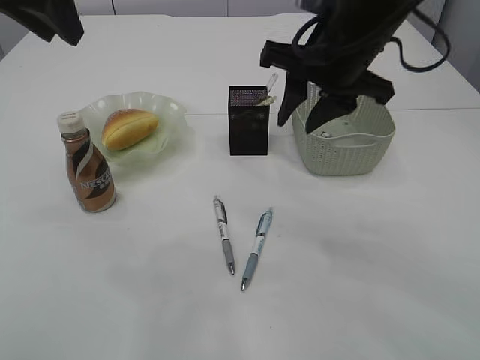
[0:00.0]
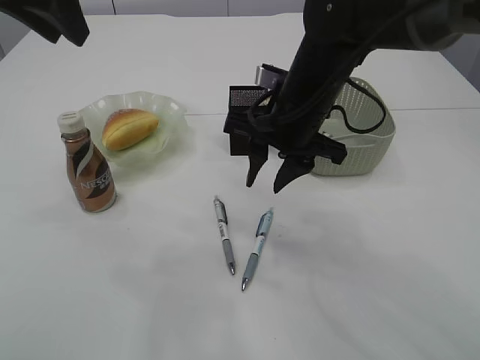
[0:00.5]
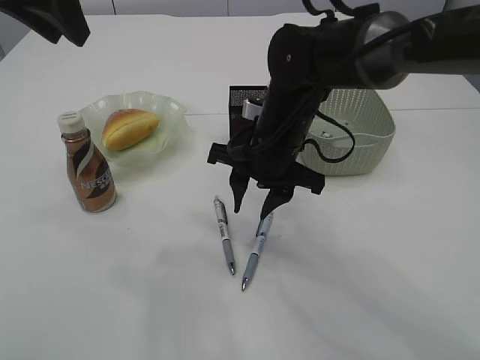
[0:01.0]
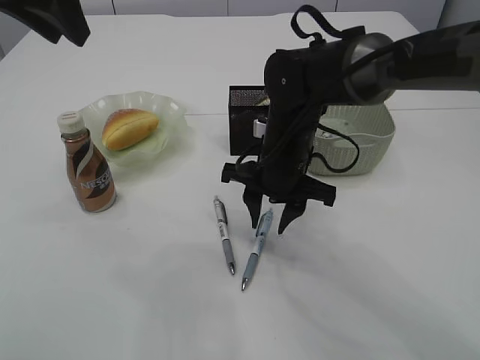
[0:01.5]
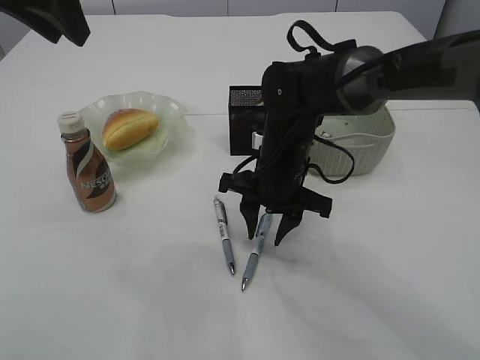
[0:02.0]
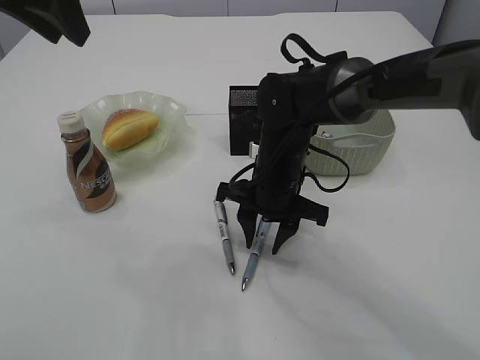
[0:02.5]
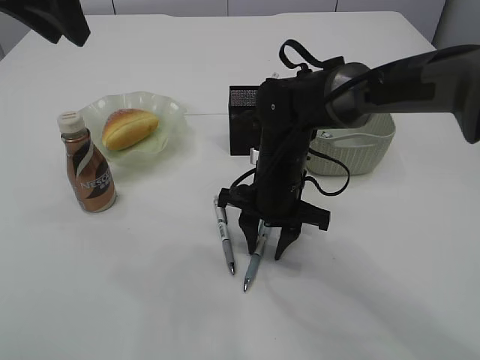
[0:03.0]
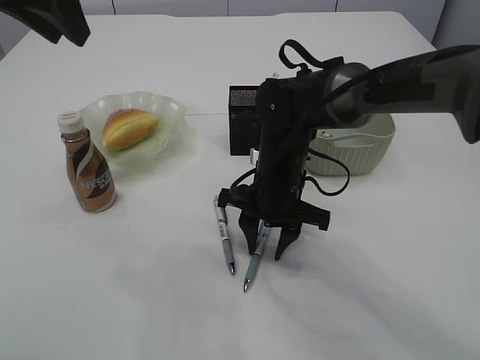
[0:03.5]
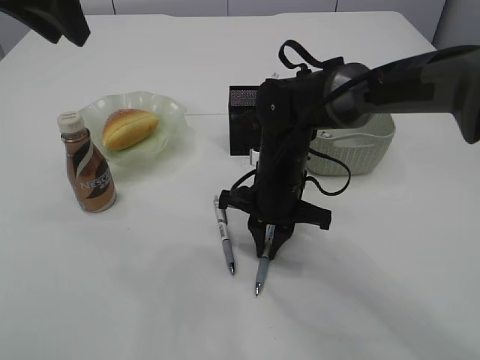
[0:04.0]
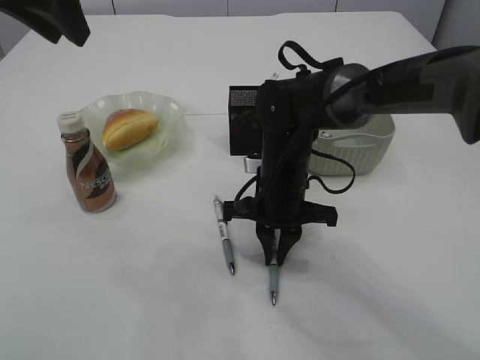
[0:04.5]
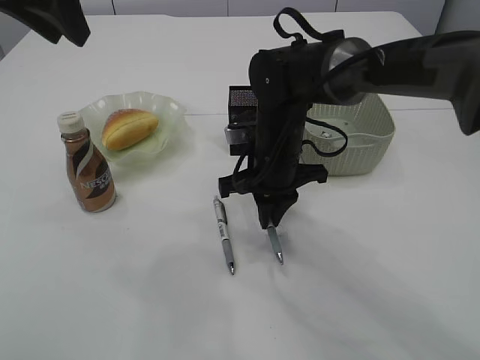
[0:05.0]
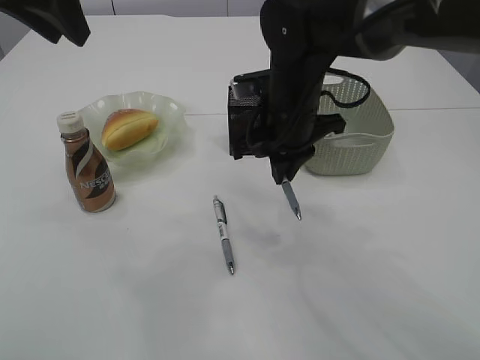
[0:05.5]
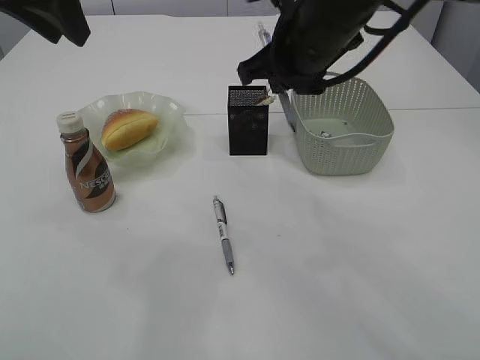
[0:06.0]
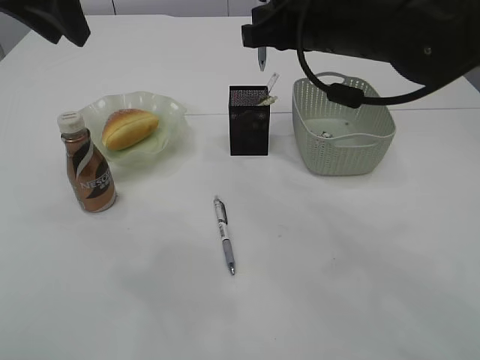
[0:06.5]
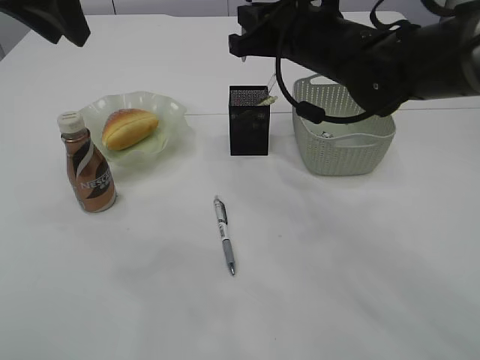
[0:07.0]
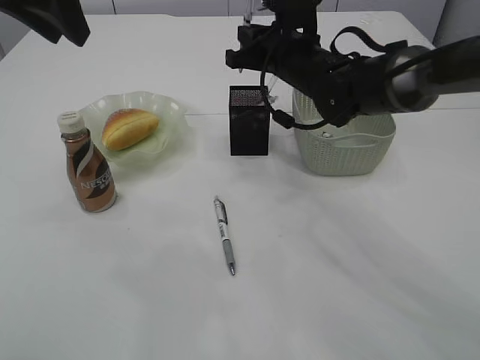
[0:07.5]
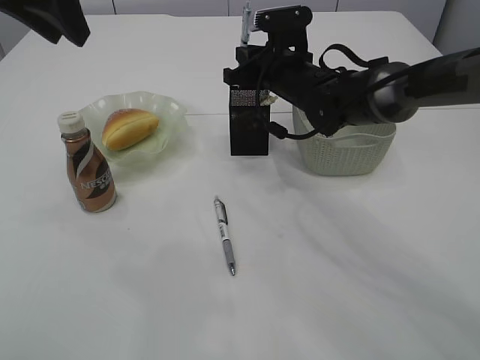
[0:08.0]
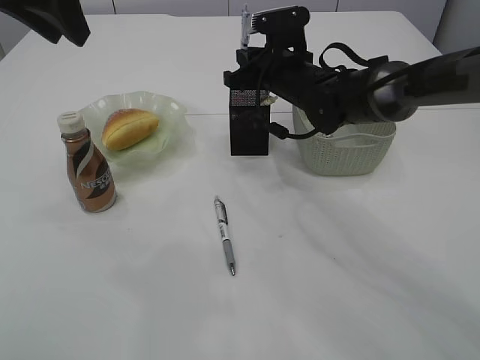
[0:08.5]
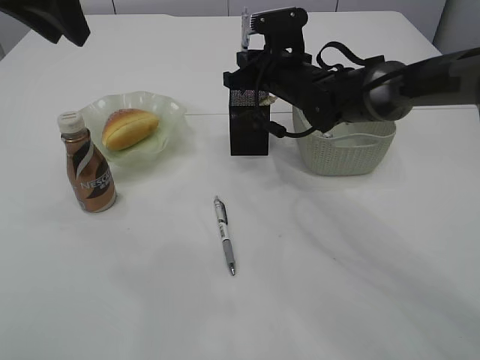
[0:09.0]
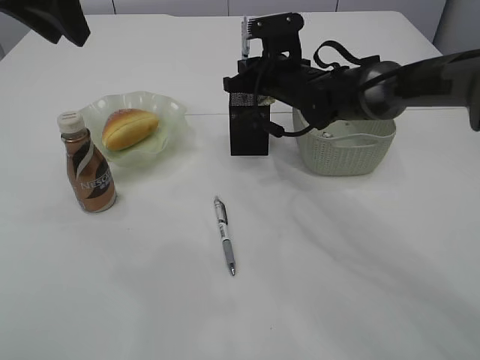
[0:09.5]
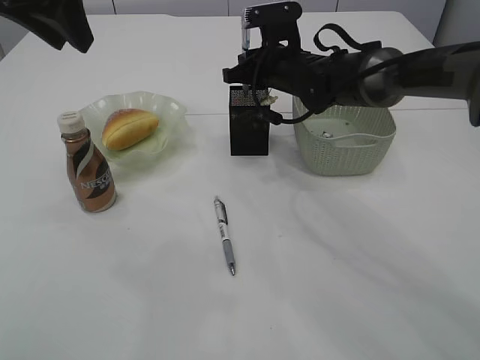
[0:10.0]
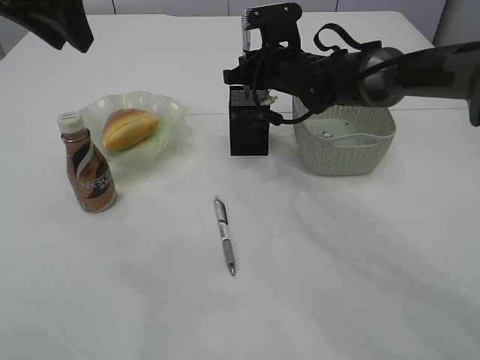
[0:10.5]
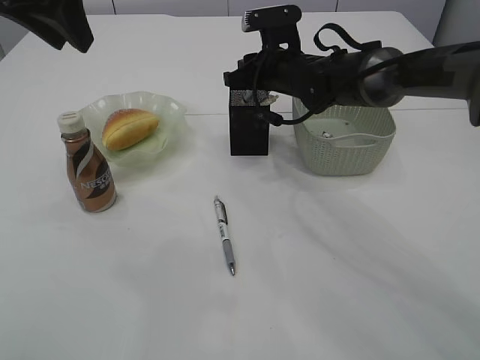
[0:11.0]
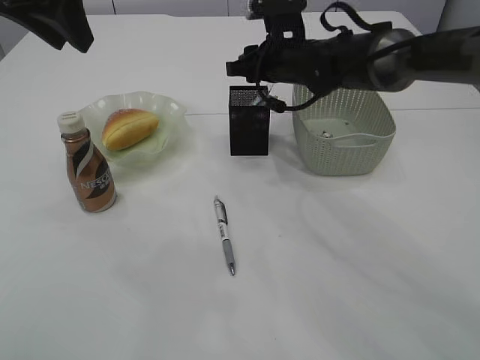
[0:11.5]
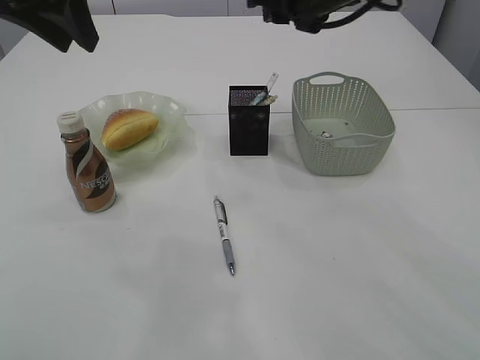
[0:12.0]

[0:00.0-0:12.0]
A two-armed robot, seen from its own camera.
Step, 0:00.0 to 0:05.0: Pick up the pen with right arm.
Step, 0:05.5 to 0:11.5: Place the pen into the pen holder.
0:00.0 to 0:02.0: The right gripper is displaced downward by some 15 cm.
0:02.0 to 0:04.0: The right gripper closes its fingers.
0:04.0 to 0:06.0: The right gripper is displaced upward by approximately 20 cm.
0:06.0 to 0:08.0: The right gripper travels forward and downward by roughly 15 cm.
0:08.0 to 0:10.0: The grippers make only small movements.
0:10.0 to 0:12.0: The right gripper shifts roughly 15 cm upward and backward, and opens its fingers.

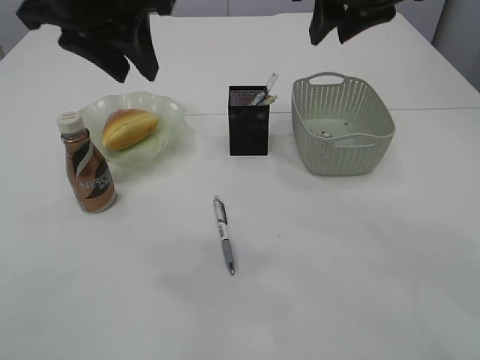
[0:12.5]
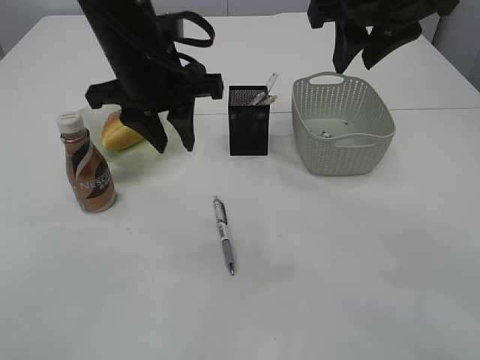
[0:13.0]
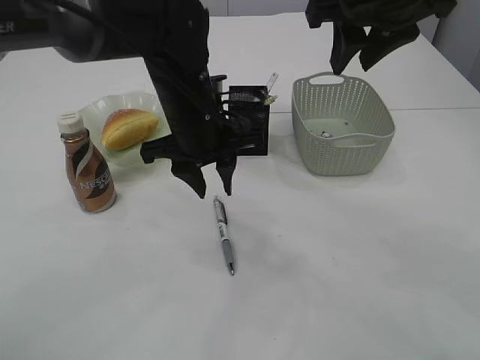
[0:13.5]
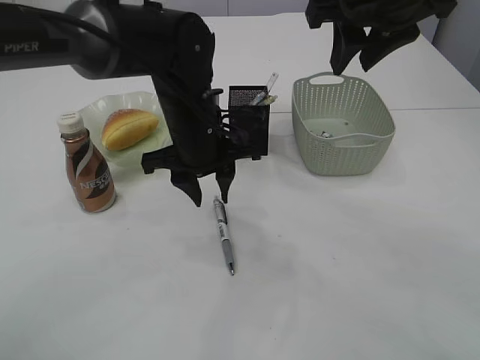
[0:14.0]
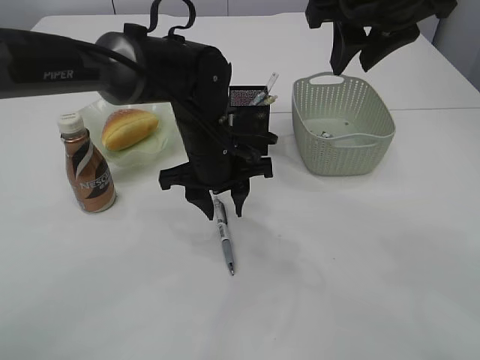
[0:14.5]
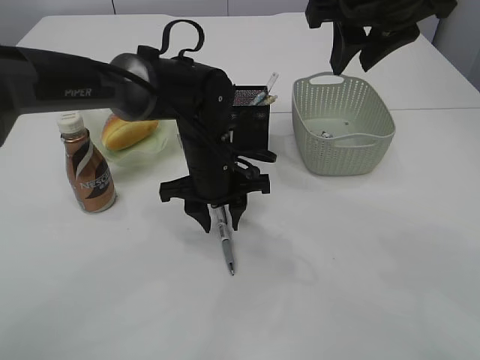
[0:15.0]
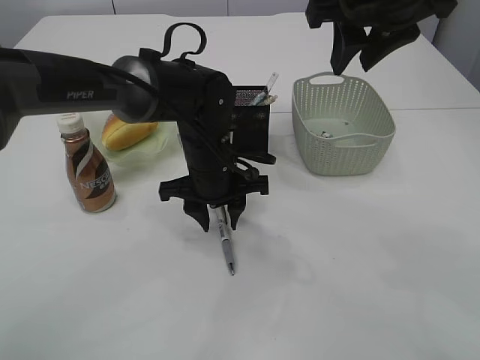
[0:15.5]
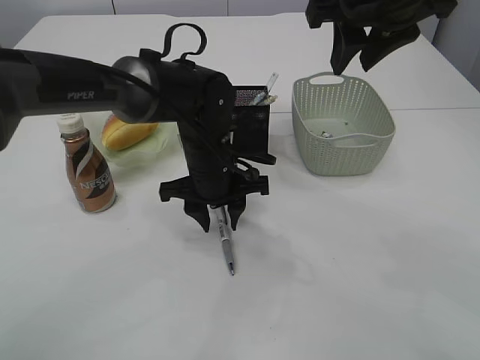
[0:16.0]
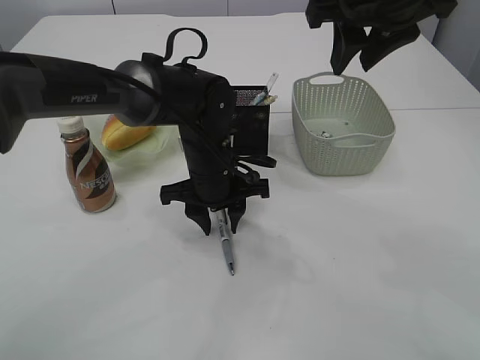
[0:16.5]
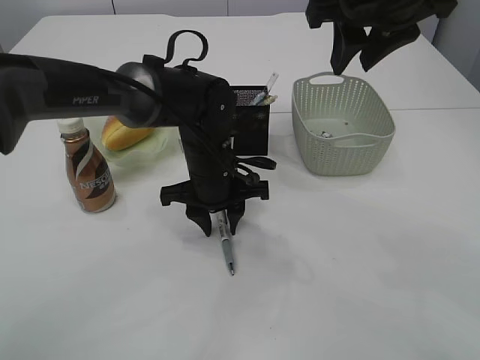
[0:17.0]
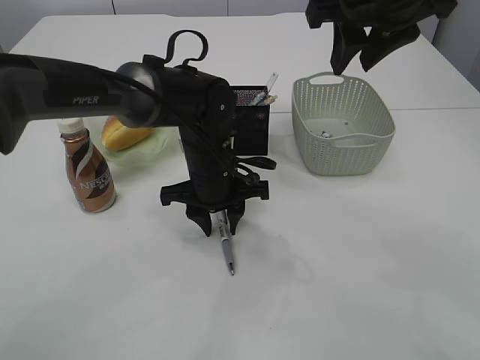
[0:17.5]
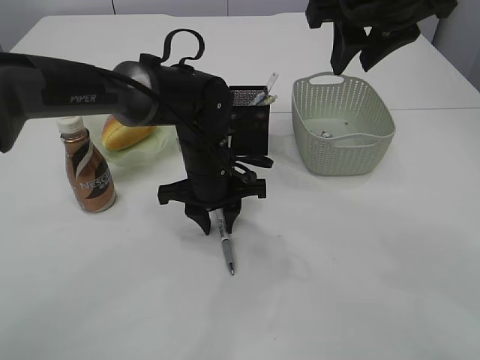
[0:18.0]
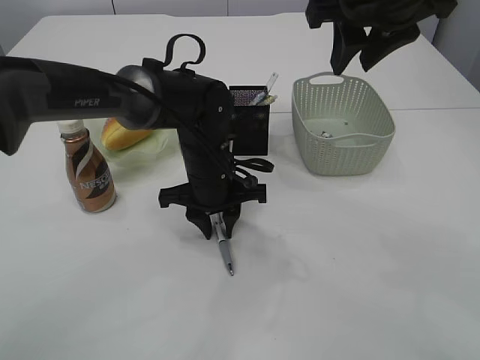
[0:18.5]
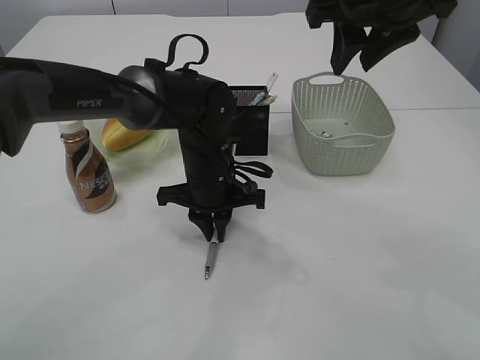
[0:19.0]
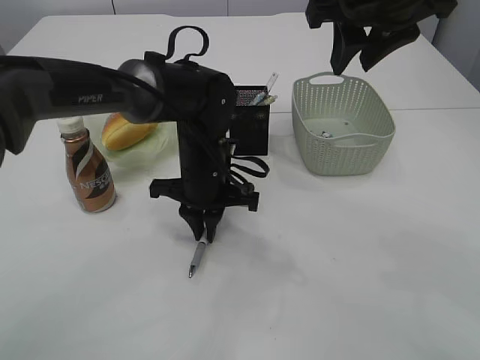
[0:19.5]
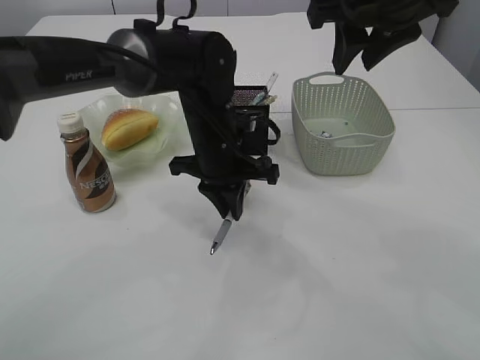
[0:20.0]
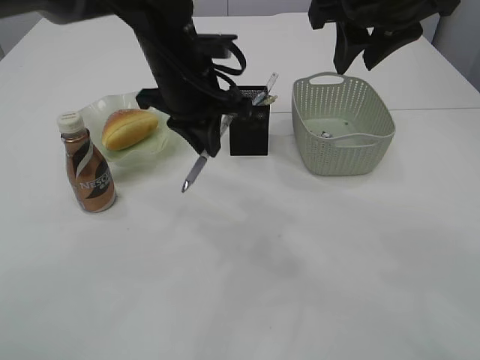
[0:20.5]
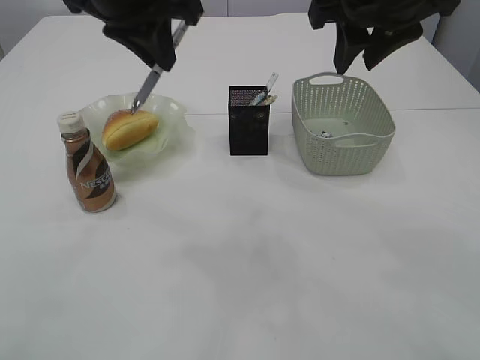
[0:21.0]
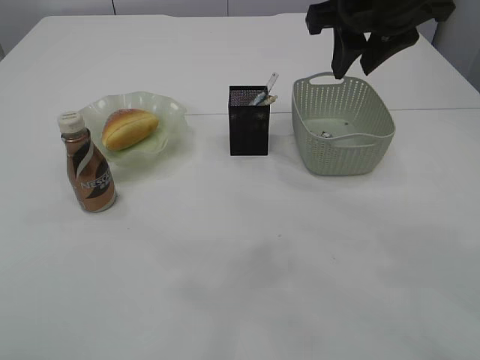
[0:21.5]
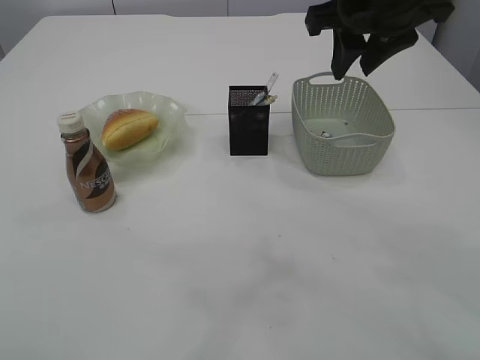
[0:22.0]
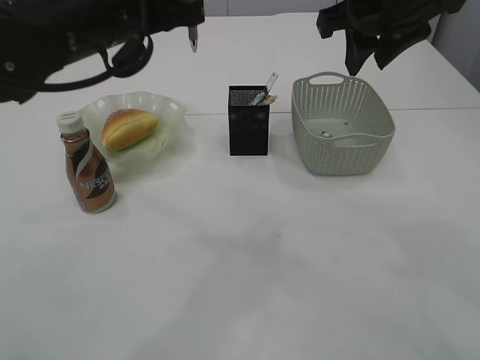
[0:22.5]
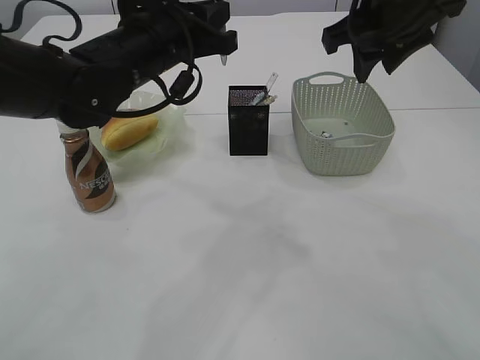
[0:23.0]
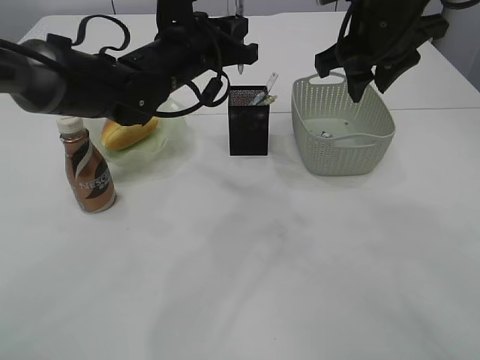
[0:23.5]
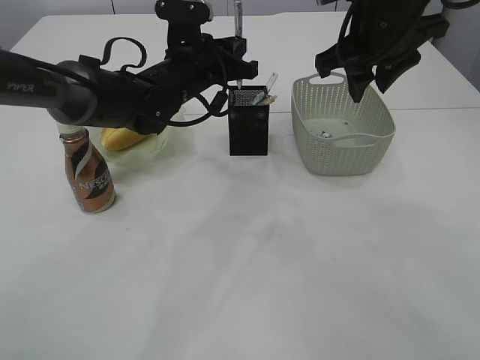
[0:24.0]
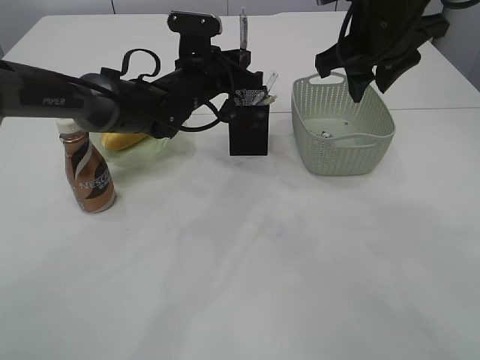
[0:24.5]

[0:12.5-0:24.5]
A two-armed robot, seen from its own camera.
Step, 0:12.5 to 0:20.0: Pick up the pen with left arm.
0:12.5 to 0:14.5: The left gripper heads downward and to the right, covering some 25 cm.
0:14.5 to 0:16.5: The grippers make only small movements.
0:16.5 to 0:18.5: Neither gripper changes place.
0:18.5 to 0:20.5: The left gripper moves upward, about 15 cm.
0:20.5 to 0:22.5: The left gripper is displaced to the left by some 5 cm, and reaches roughly 25 cm upward, then returns.
0:22.5 to 0:24.5: The left gripper goes approximately 20 cm forward, downward and to the right.

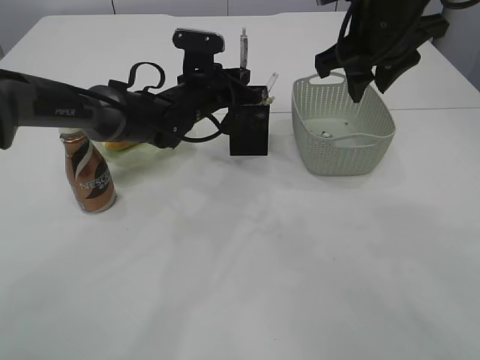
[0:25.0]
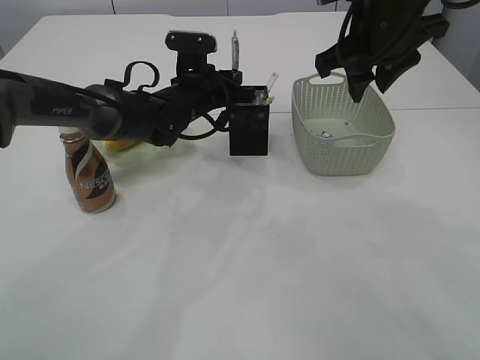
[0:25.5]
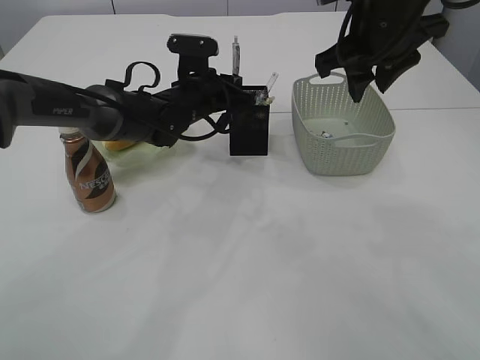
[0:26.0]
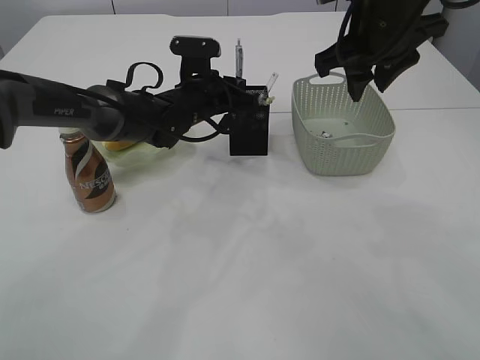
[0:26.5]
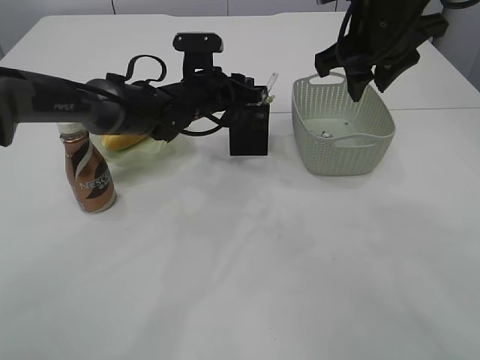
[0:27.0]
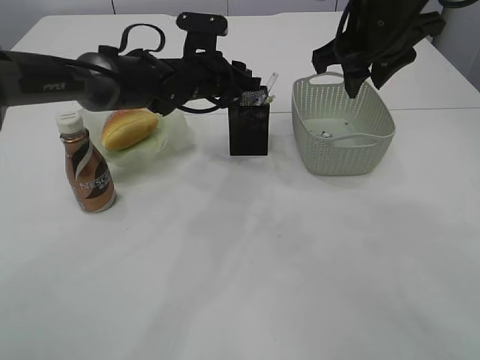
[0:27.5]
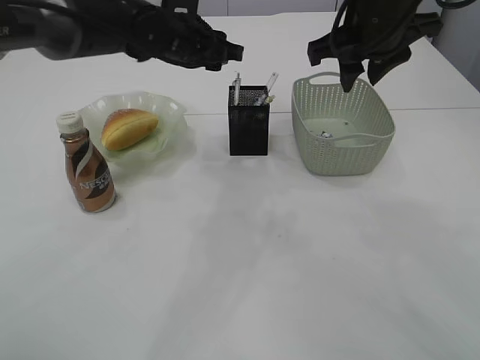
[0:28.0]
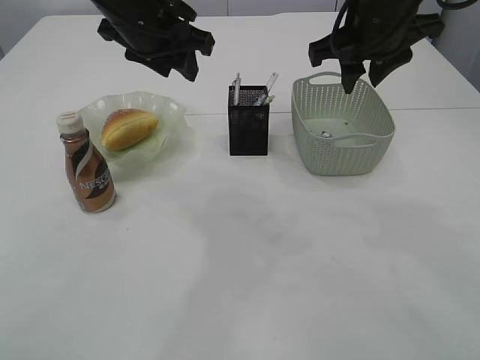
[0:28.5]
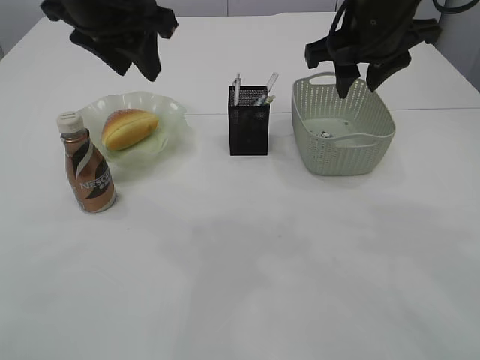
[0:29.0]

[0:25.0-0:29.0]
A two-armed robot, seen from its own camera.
Step, 0:25.0 to 0:27.5: Place the pen into the pen holder.
0:25.0 to 0:27.0: The left gripper opens up.
0:27.0 to 0:29.0: The left gripper heads upward and backward, covering roughly 25 cm.
